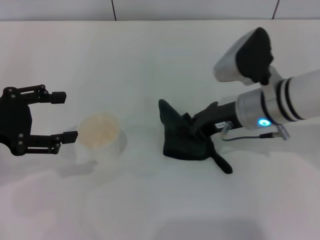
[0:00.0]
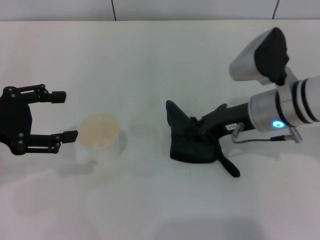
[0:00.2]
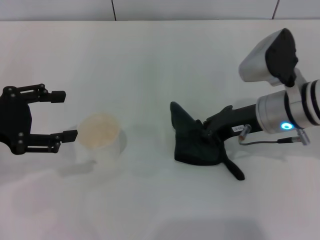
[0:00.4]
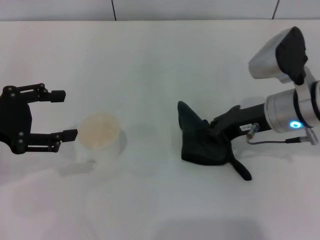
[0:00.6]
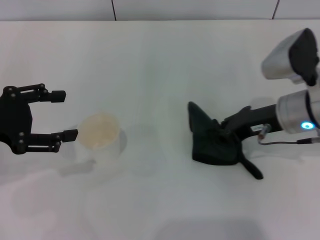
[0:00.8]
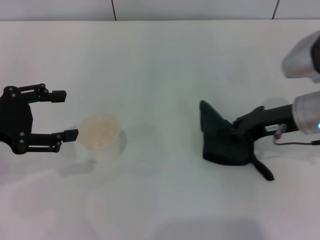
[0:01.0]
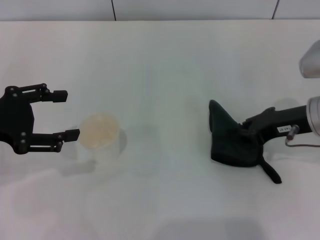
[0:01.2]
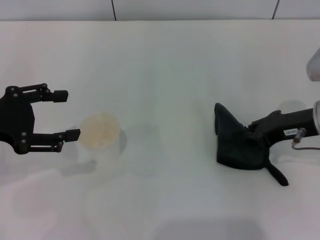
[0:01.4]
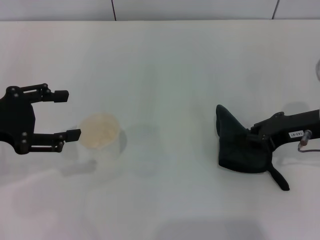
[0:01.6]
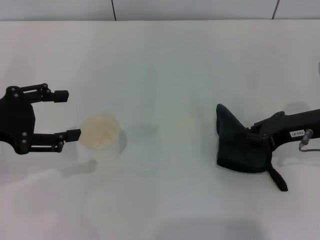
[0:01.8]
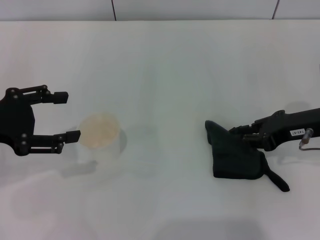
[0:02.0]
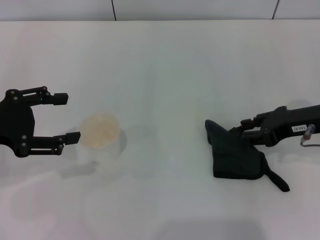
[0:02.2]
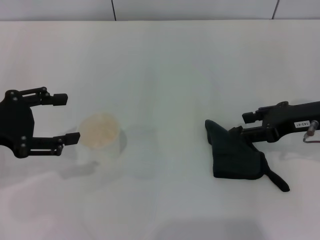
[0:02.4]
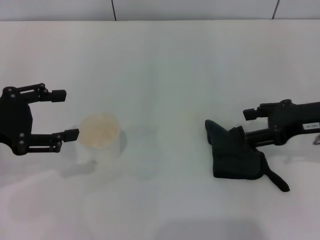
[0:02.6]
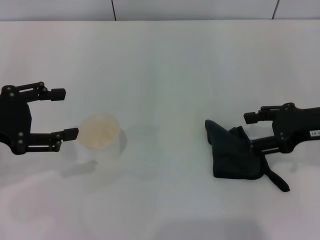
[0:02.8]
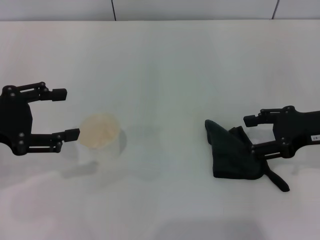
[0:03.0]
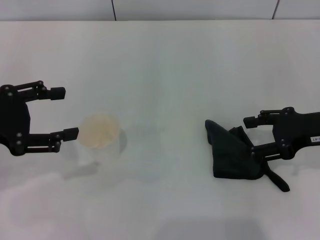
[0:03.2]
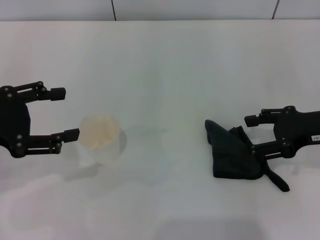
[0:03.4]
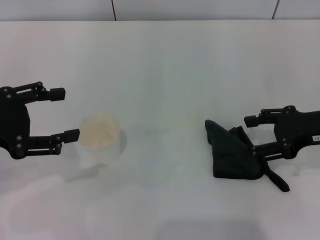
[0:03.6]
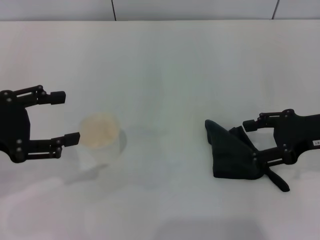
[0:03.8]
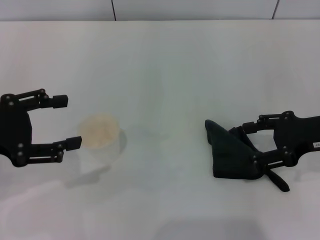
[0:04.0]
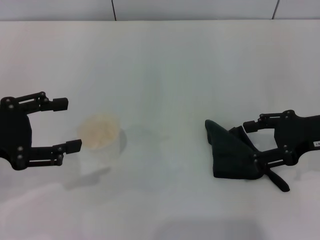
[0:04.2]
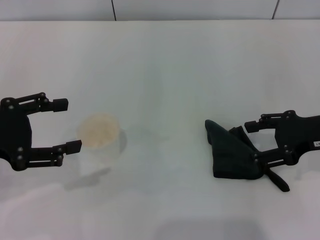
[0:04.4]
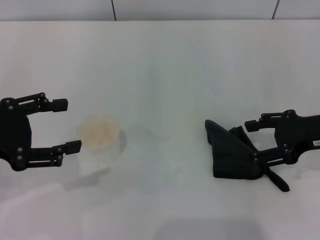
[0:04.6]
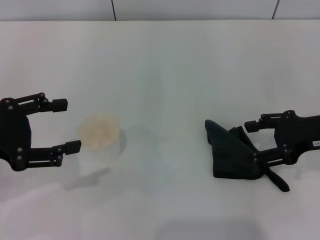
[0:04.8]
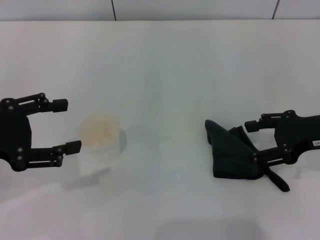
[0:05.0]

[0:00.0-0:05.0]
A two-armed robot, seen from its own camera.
Step, 0:00.0 to 0:02.8: Place the rag on the table with the right gripper.
0:00.0 to 0:01.6: The right gripper goes approximately 10 cm to the right.
0:01.6 to 0:03.4: The right gripper opens up.
0:03.4 to 0:05.0: The two grippers keep their place.
